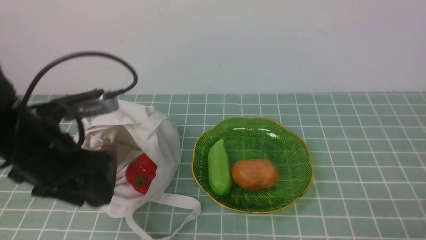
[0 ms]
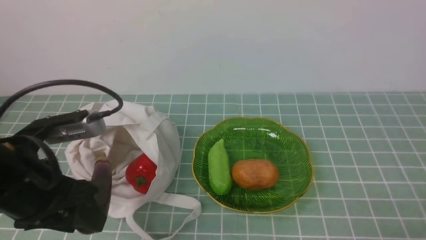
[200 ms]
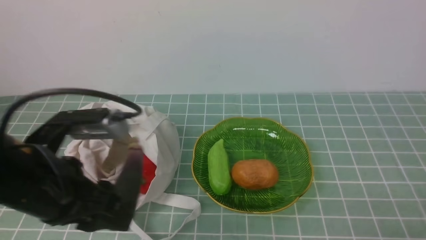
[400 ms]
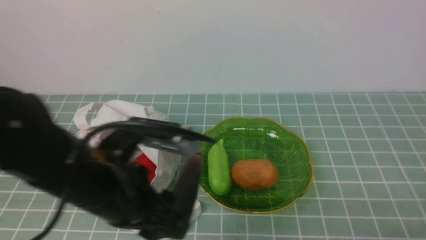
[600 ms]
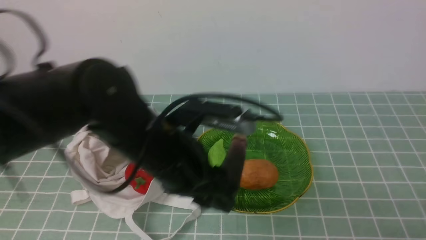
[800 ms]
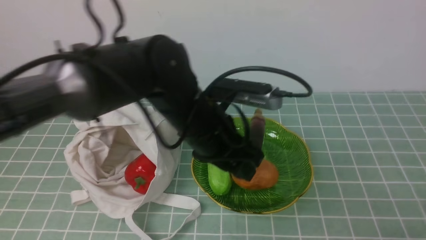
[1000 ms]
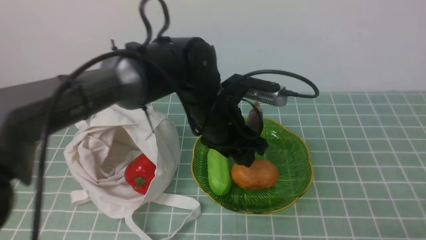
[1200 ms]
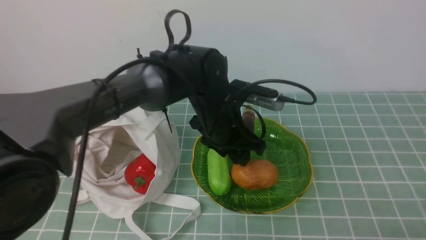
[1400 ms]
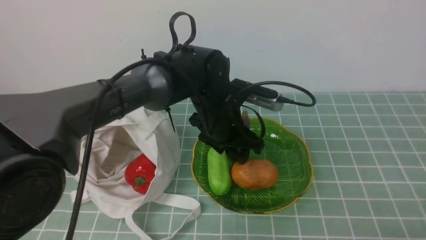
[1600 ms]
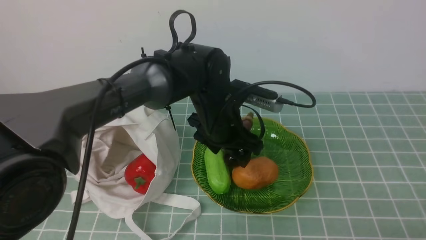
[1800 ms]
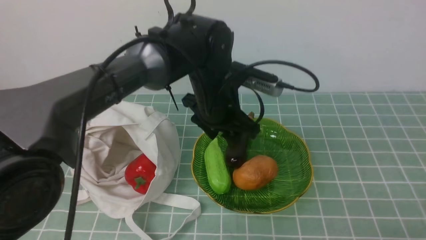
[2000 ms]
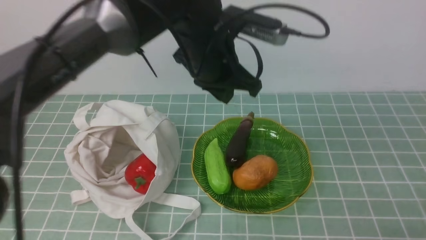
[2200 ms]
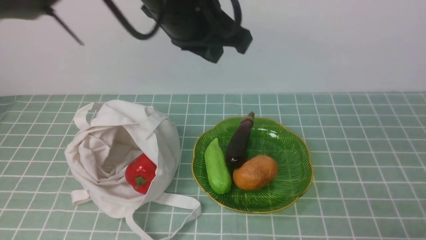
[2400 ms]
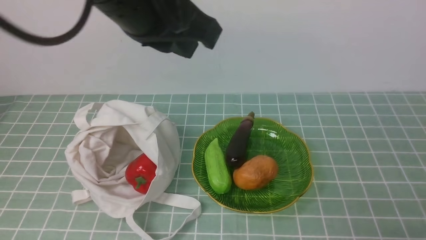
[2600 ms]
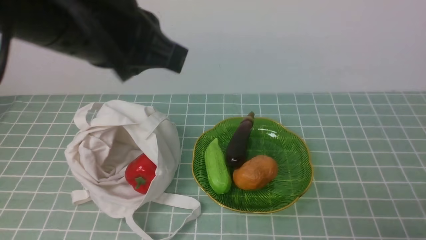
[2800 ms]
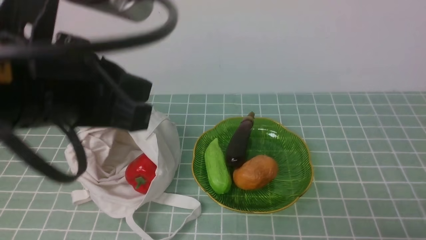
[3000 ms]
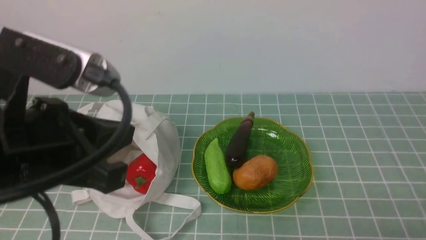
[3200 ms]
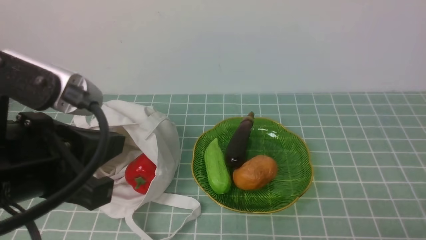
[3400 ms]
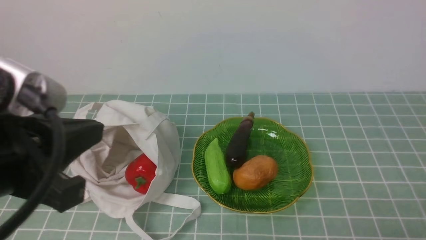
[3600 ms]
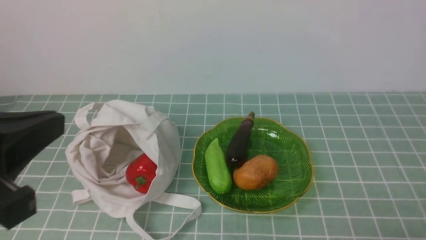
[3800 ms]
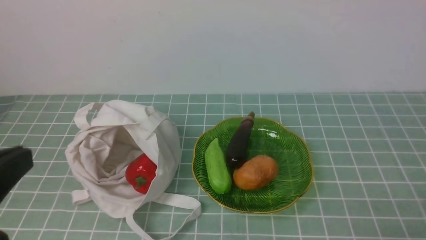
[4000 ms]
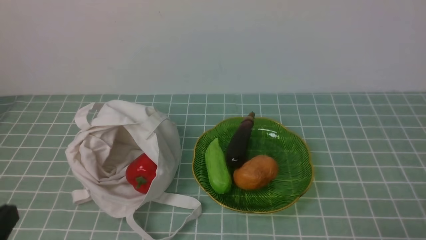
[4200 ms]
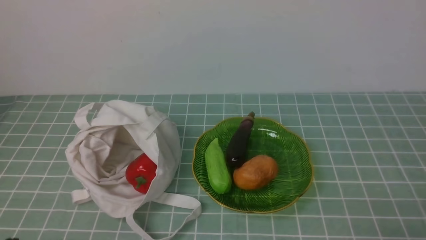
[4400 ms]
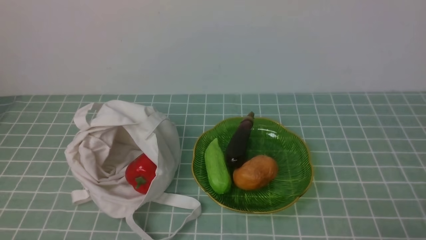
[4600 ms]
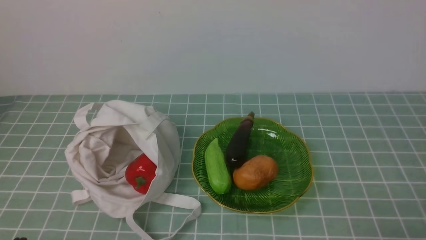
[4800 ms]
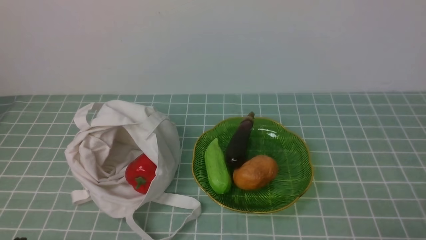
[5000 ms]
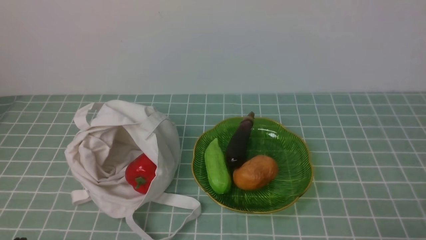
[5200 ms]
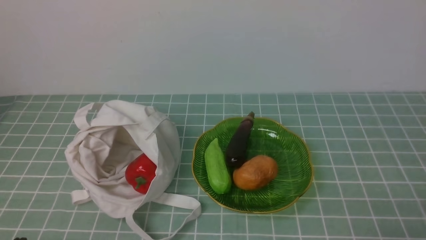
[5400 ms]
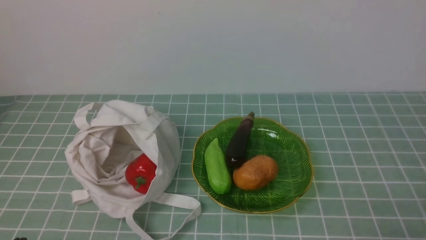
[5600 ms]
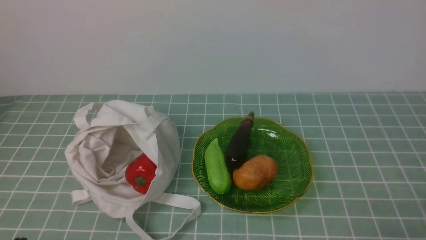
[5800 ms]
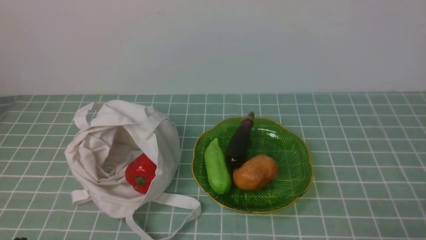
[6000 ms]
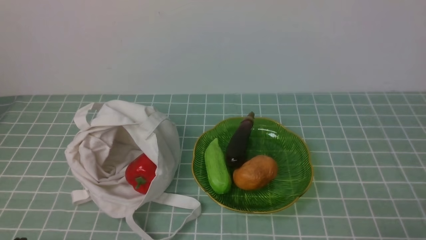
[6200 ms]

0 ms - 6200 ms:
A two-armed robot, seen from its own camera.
Task of the whole recording: take vegetables from cloth bag on blue coffee tablecloth place on plate.
0 ms - 1600 ms: The left gripper heads to the right and forward, covering approximately 25 cm.
1600 ms - 3200 ms: The left gripper is displaced backward, to the left and upward by some 30 cm, and closes up.
3200 ms - 4600 ms: The left gripper shifts roughly 25 cm downward, to the left and backward.
4600 ms - 6200 ms: Neither gripper changes place.
